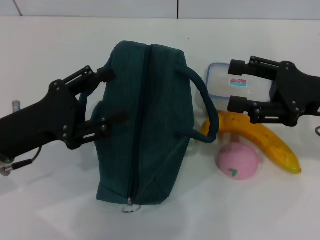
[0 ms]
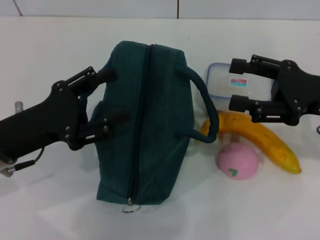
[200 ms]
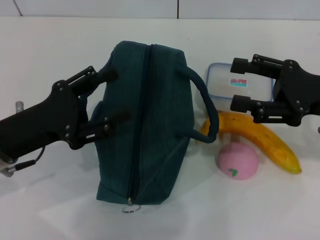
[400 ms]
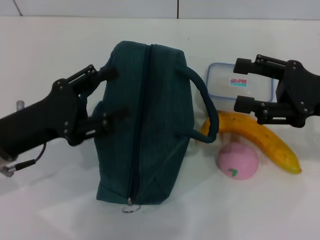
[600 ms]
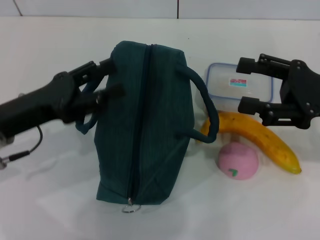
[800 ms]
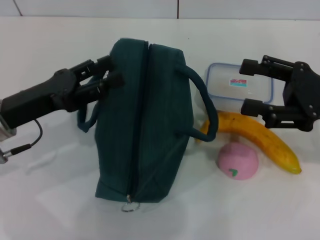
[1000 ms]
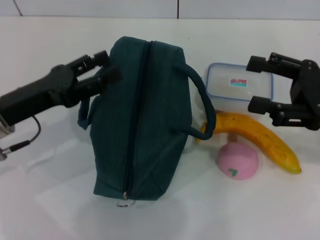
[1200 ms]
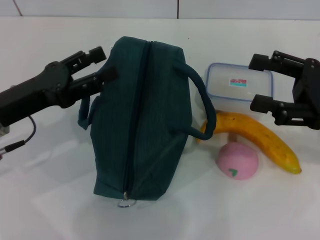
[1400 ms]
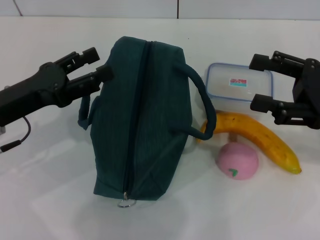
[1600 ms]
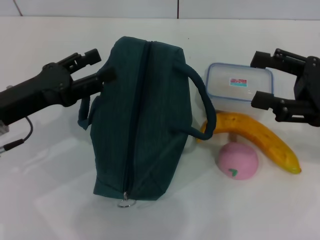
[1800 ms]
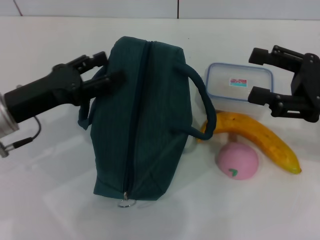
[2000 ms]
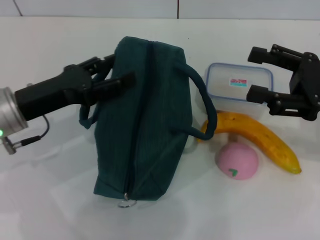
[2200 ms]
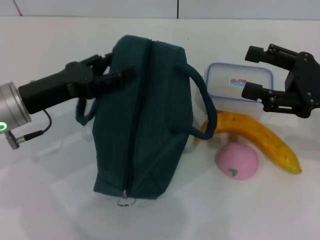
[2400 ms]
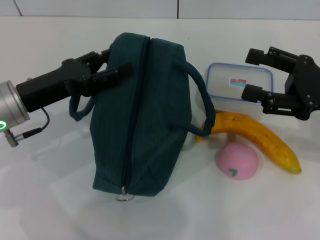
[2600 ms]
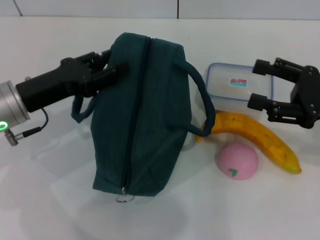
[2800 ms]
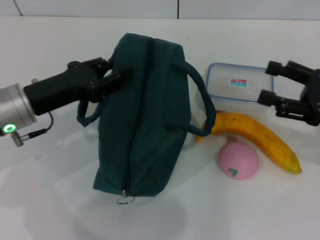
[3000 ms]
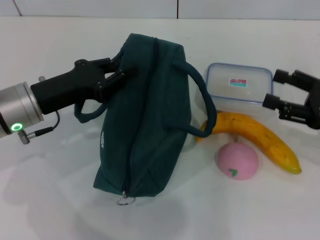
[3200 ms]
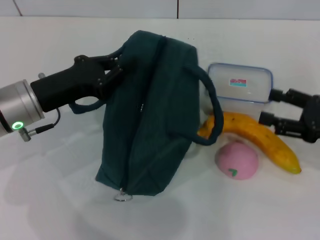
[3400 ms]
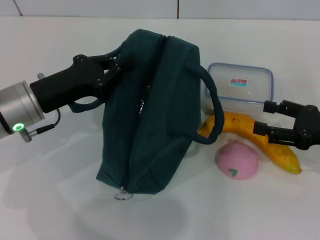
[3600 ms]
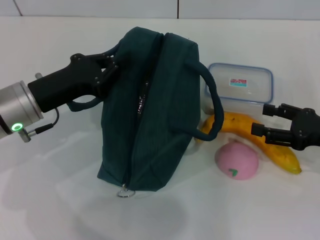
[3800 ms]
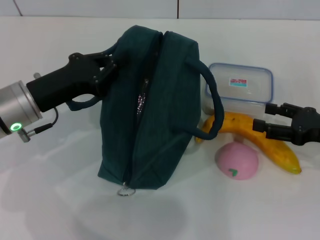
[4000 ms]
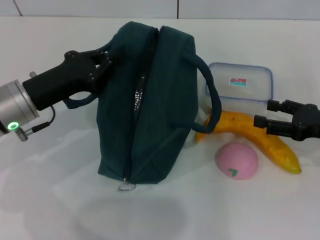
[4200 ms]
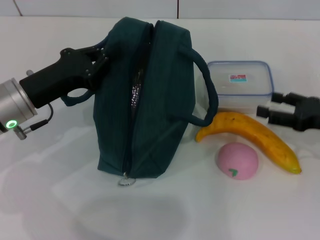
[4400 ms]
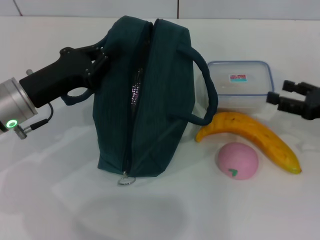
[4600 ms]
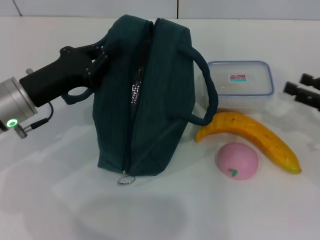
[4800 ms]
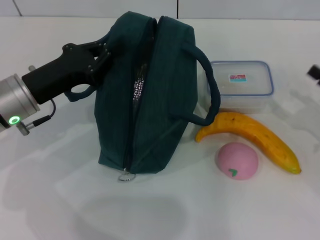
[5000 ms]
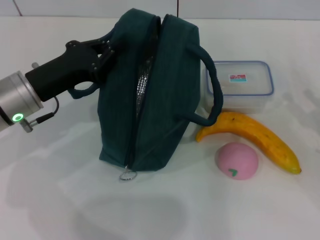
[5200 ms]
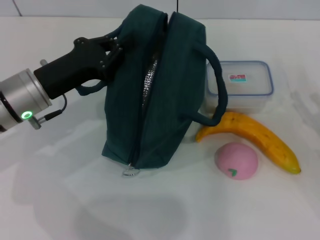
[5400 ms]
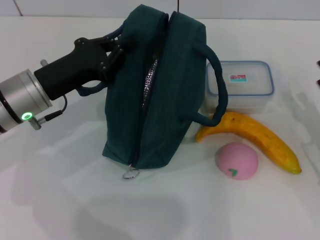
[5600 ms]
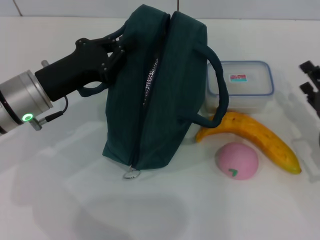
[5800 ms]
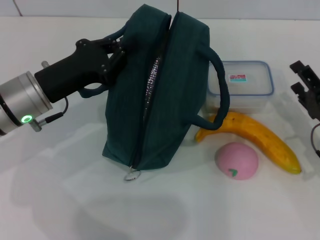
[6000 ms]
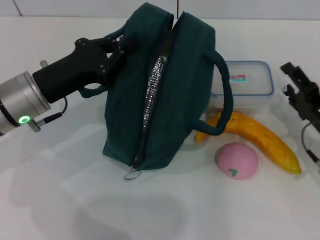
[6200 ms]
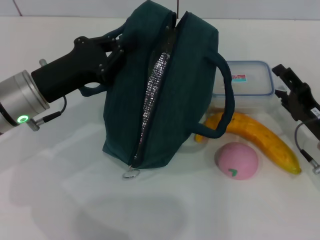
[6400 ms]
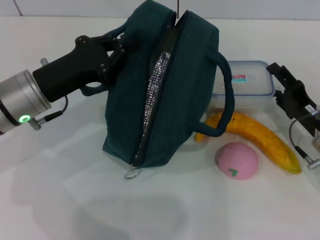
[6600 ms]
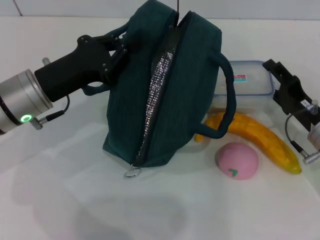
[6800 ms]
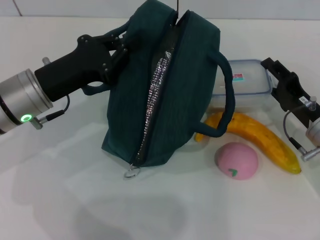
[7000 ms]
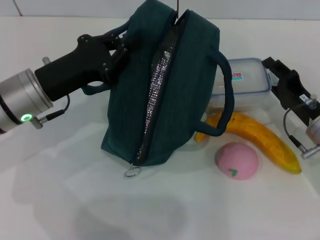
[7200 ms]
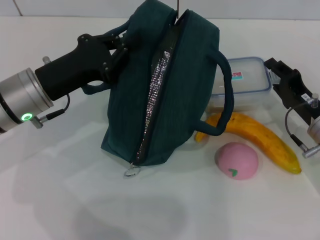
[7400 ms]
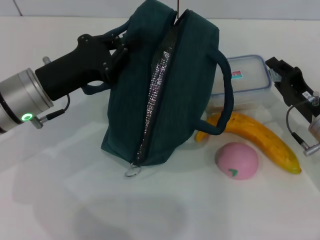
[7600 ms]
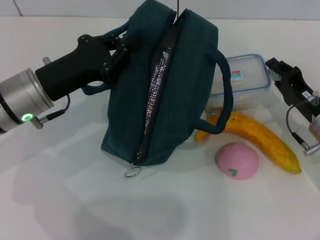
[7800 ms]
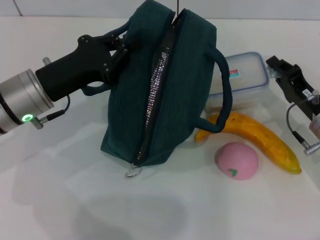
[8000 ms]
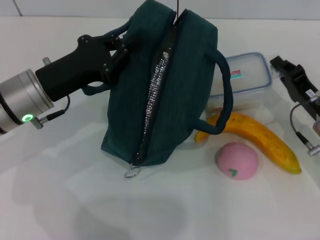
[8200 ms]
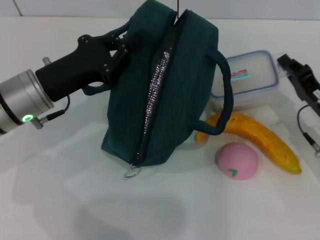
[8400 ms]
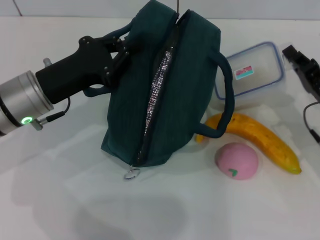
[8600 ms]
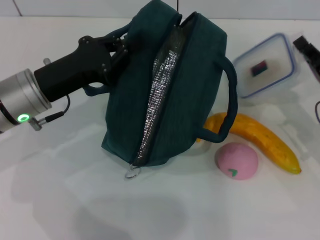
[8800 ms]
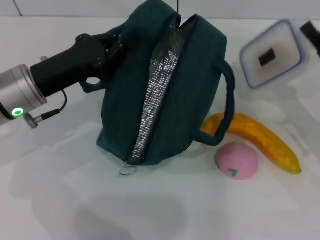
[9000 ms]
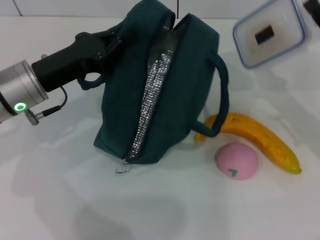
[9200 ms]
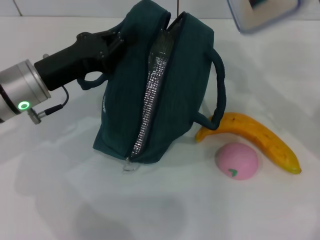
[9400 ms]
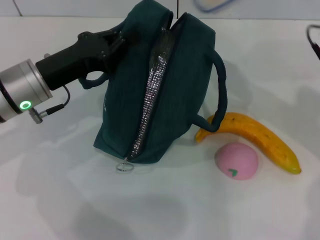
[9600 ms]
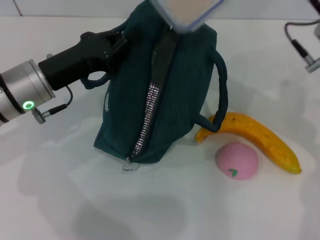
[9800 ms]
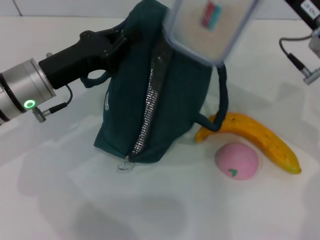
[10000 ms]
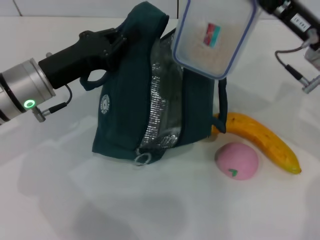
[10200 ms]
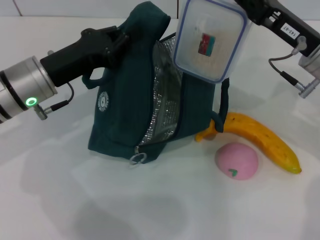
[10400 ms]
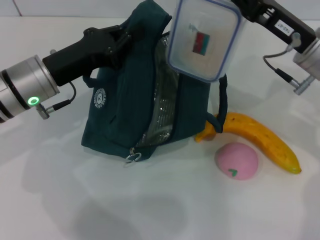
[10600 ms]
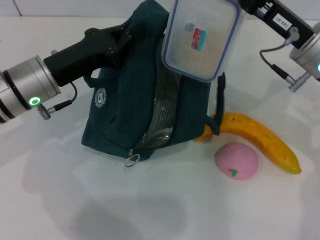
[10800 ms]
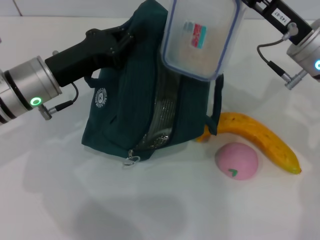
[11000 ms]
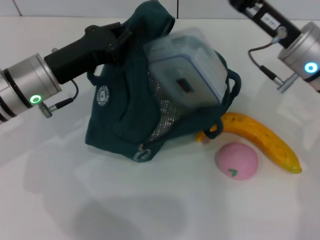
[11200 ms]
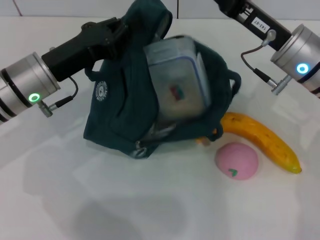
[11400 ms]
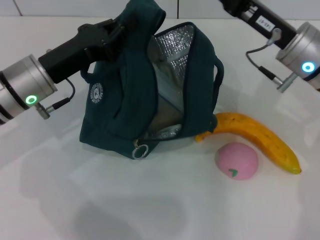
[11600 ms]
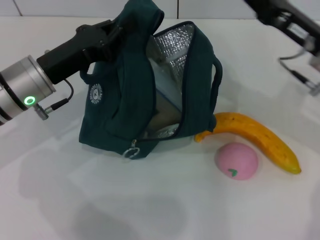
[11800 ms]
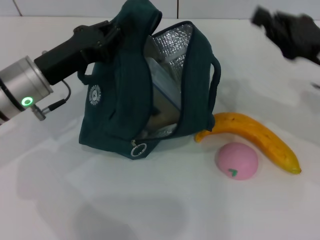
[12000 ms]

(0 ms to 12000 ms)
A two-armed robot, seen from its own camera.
Step, 0 ms - 4200 ms: Hold the lunch bag with your left hand.
Step, 4600 ms - 8000 ms: Pick up the lunch box with your right hand.
Step, 8400 ms - 11400 ms: Place the lunch box into the lunch bag with your right hand.
1600 ms - 3000 ms: The grippers stay close to where they were, moving slightly.
3000 ms - 4400 ms: The left gripper closes.
4400 ms - 6000 ms: The right gripper moves downward, some 5 cm.
6000 ms - 7600 ms: The right gripper closes its fingers.
7600 ms - 9000 ms: The right gripper moves approximately 5 cm.
9000 ms - 10400 ms: The right gripper goes some 10 cm to the left and upward.
10400 ms - 12000 ms: The right gripper moves to the right, some 5 cm.

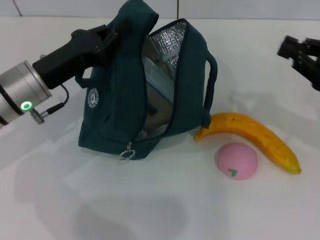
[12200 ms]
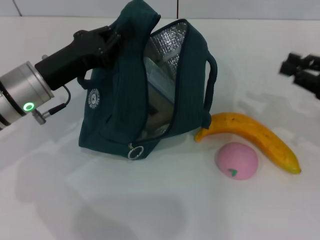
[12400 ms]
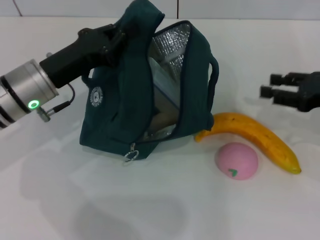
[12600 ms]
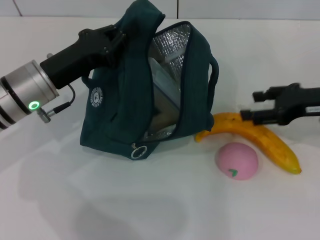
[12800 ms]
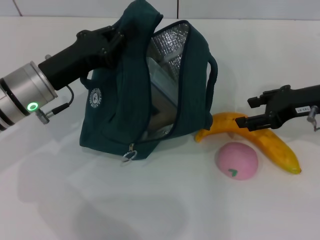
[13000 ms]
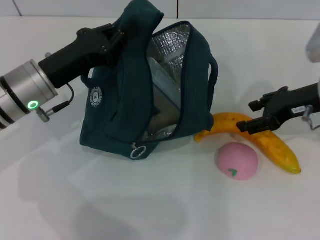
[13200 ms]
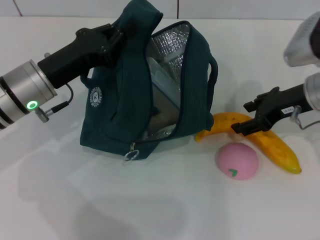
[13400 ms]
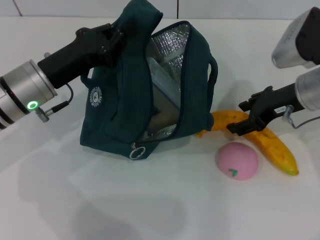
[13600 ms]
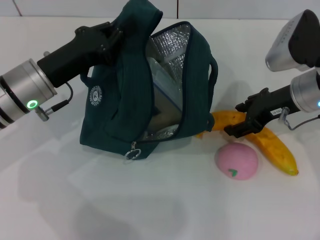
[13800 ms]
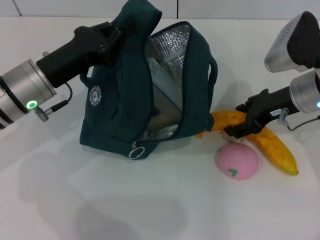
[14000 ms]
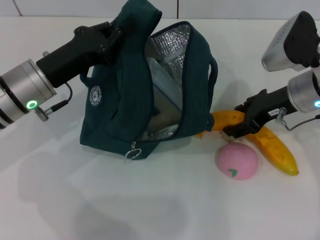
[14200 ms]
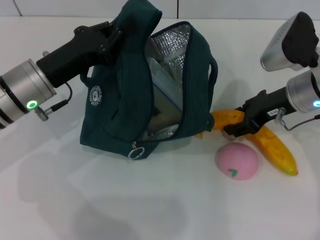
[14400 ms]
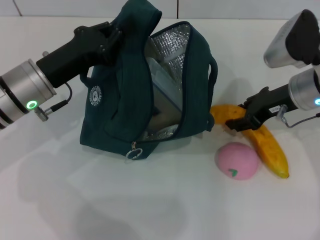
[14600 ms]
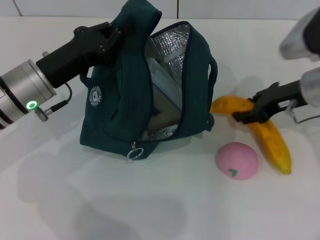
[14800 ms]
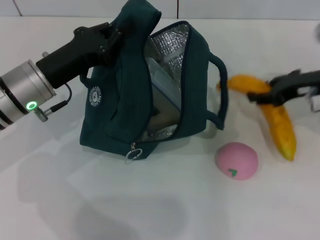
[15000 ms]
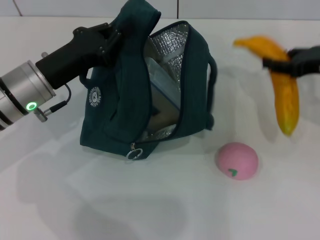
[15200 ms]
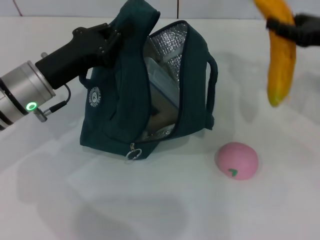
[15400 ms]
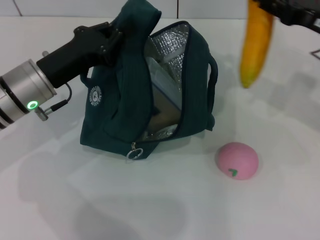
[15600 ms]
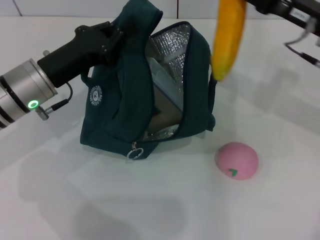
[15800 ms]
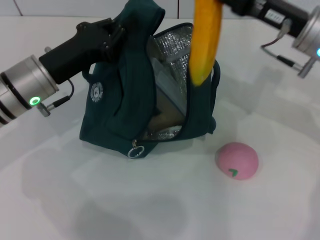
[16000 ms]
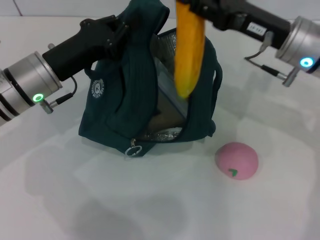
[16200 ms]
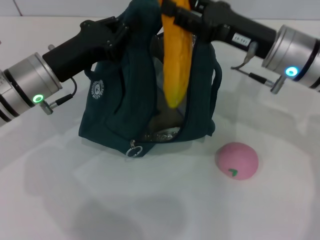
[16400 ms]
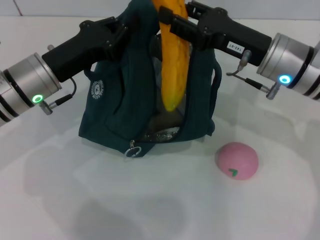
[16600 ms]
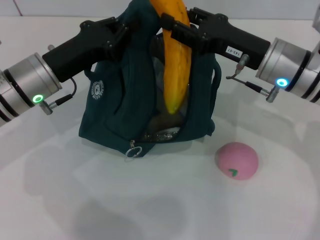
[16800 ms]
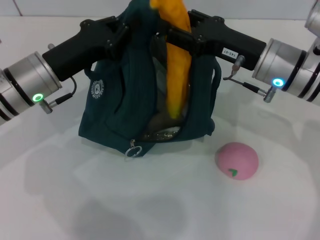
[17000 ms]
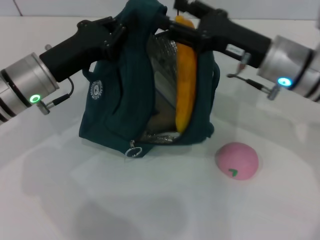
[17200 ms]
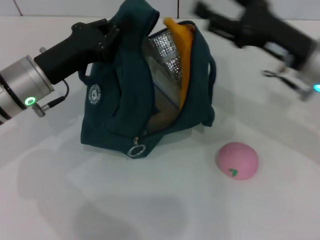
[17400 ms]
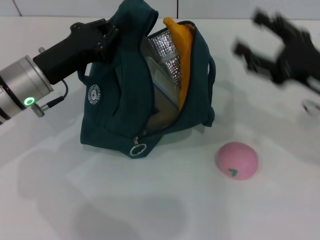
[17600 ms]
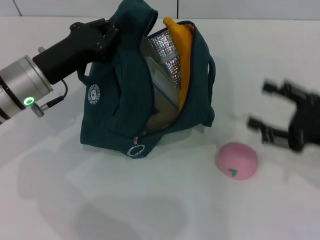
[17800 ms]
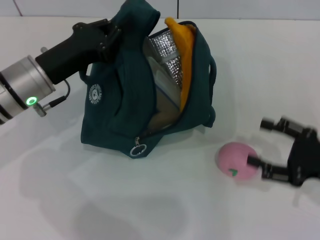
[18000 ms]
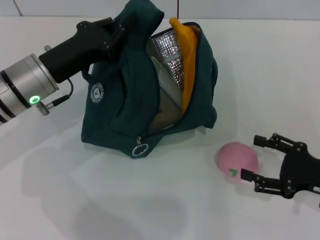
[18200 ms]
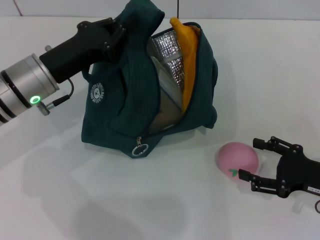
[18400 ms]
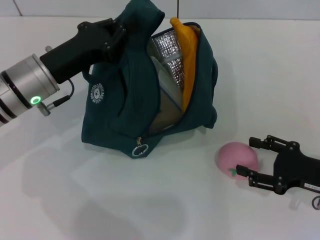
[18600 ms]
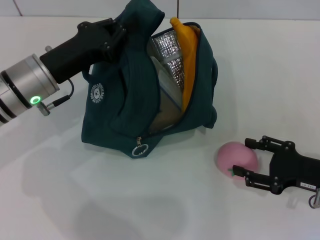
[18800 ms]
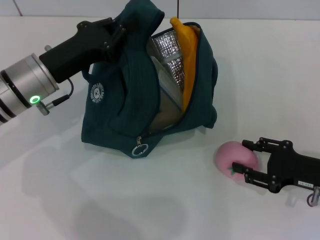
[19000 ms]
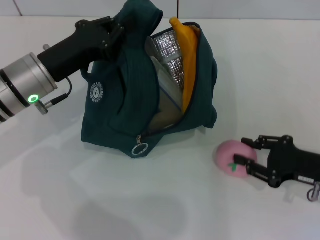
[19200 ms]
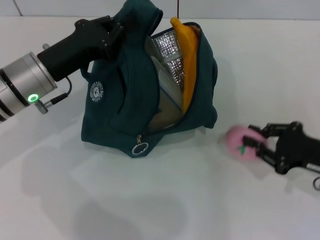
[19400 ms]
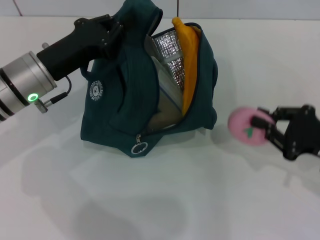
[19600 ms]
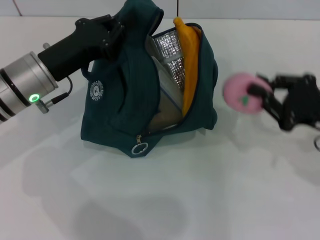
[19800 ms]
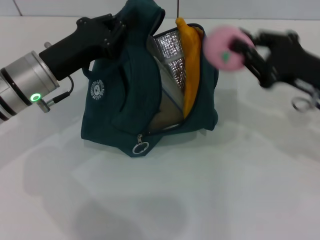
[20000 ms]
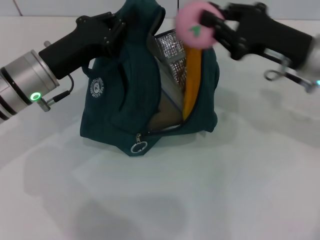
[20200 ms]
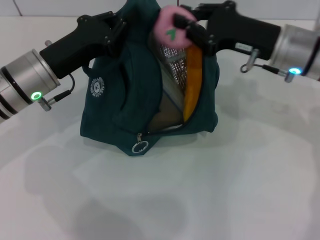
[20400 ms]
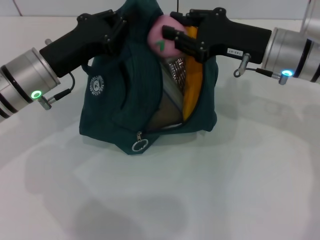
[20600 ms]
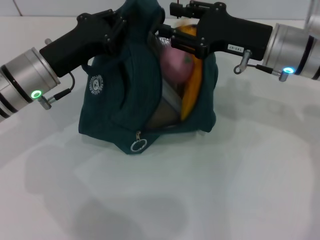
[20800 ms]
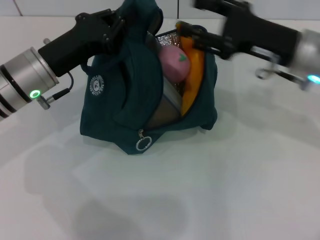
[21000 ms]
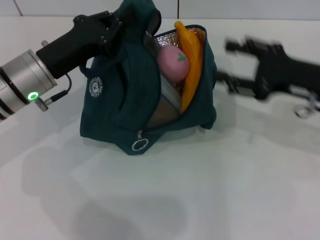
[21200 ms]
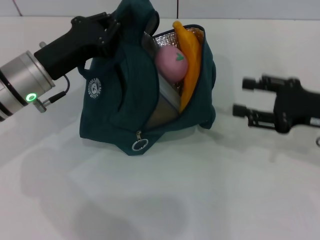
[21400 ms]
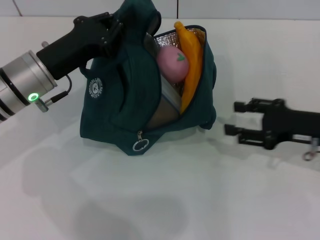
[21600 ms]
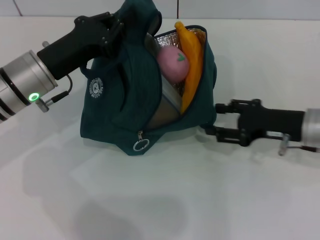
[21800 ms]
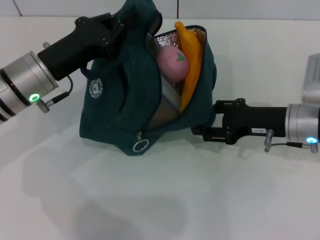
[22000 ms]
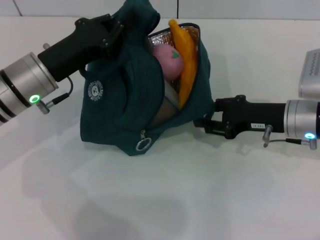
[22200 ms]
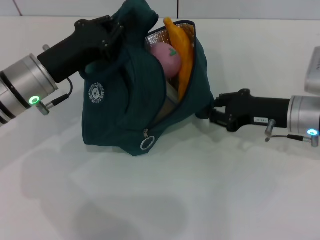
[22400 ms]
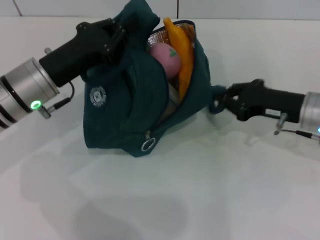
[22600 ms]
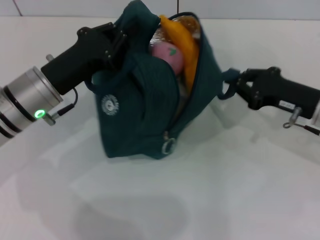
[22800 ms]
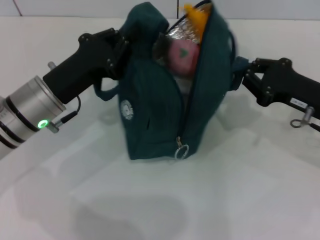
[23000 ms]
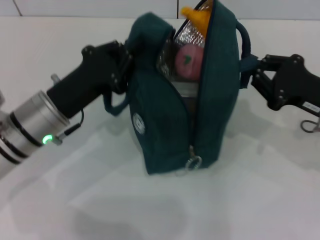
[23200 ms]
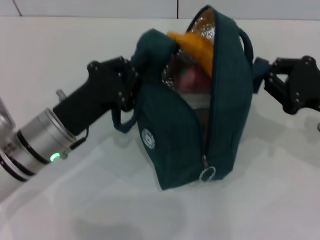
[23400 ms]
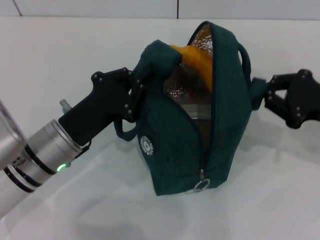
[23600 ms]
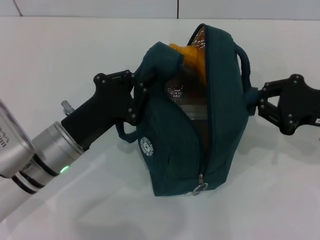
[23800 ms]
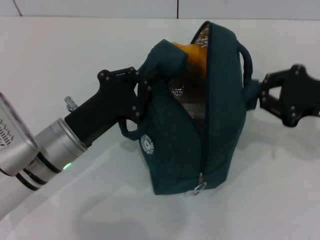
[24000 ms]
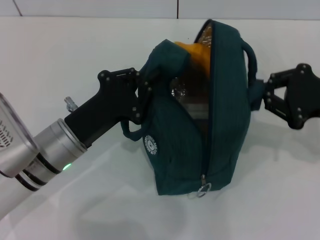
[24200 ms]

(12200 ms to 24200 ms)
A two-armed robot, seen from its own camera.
Step, 12200 ms - 14600 ms: Take the banana with your right hand.
Step, 14800 ms - 17200 ms: Put the banana into the lunch bag with your right hand.
Step, 17400 ms - 19000 ms: Grab the peach with your right hand.
12200 ms - 13800 ms: The right gripper travels to the left and forward by roughly 15 cm, and opens its fingers.
13800 ms - 15200 ms: The right gripper heads to the right, covering roughly 10 cm.
15200 ms - 16600 ms: The right gripper is displaced to the left by approximately 15 cm.
16600 ms - 18200 ms: The right gripper moves to the right, backward and downward, about 20 cm, and opens up.
18200 ms - 19800 ms: The right gripper is displaced upward by roughly 5 cm, and closes its fingers.
19800 ms - 21200 ms: The right gripper goes to the left and returns, about 10 cm each way, and opens up.
21200 ms - 22600 ms: The right gripper shifts approximately 5 cm downward, and closes its fingers.
22600 ms - 24200 ms: The left gripper goes about 5 cm backward. Meanwhile the right gripper goes some 10 cm upward and to the right.
